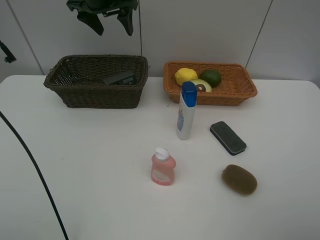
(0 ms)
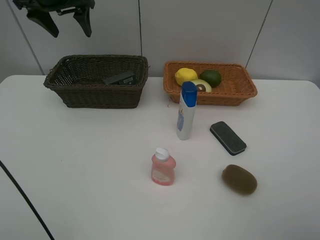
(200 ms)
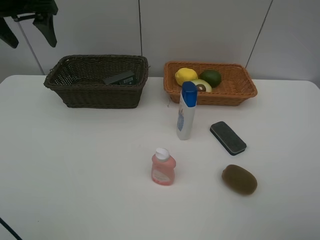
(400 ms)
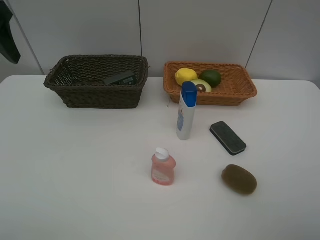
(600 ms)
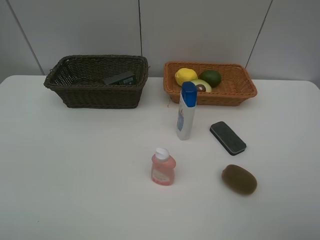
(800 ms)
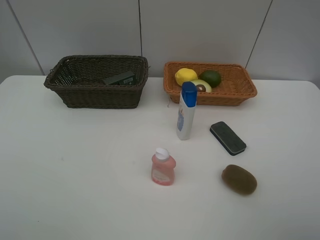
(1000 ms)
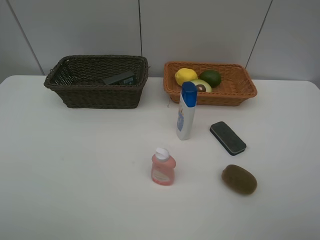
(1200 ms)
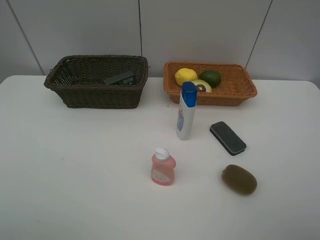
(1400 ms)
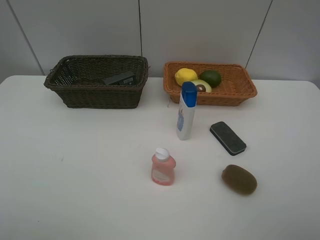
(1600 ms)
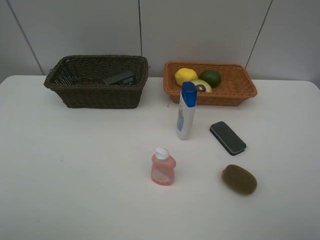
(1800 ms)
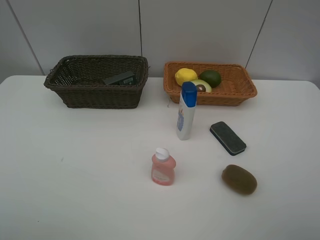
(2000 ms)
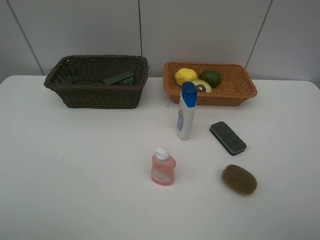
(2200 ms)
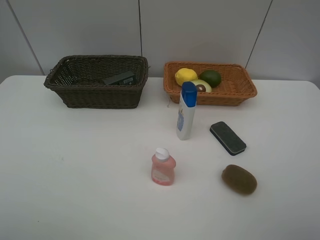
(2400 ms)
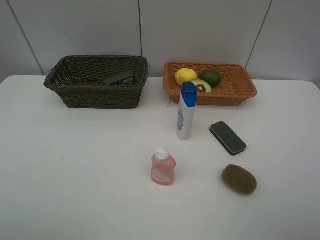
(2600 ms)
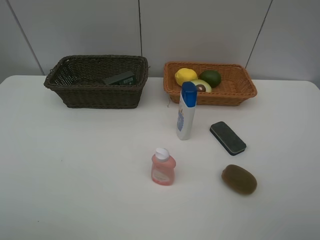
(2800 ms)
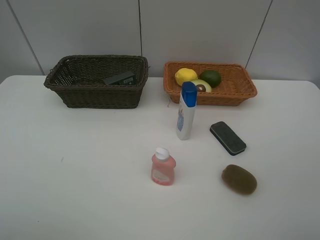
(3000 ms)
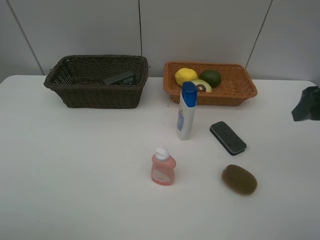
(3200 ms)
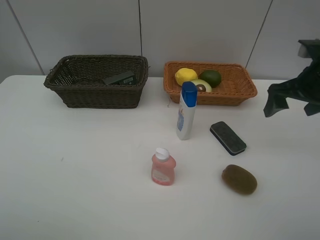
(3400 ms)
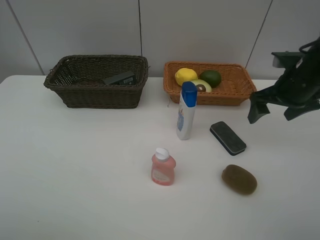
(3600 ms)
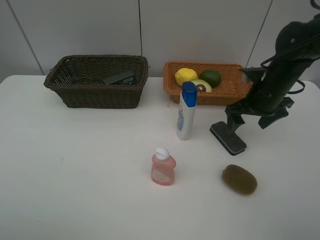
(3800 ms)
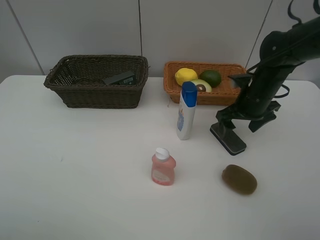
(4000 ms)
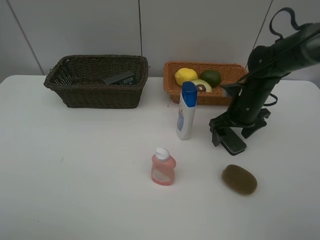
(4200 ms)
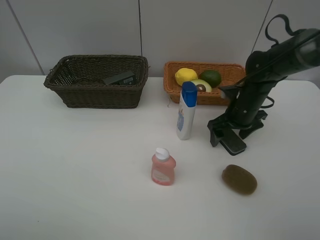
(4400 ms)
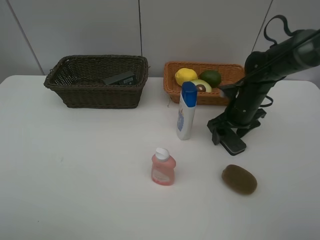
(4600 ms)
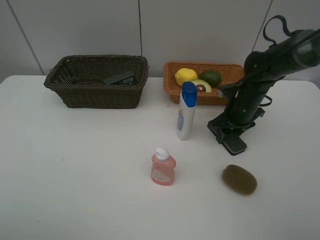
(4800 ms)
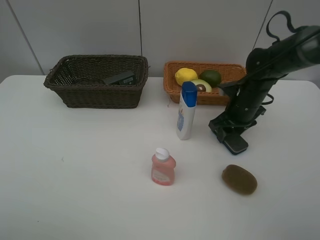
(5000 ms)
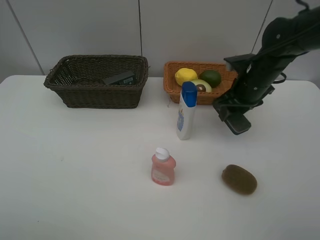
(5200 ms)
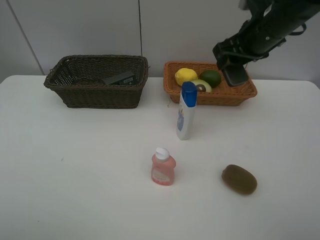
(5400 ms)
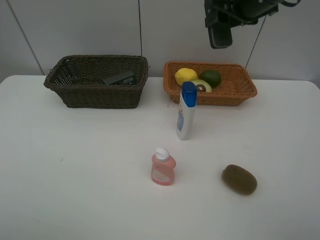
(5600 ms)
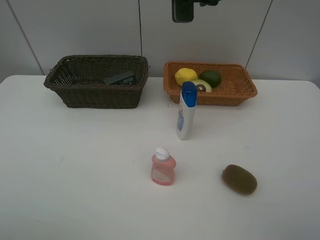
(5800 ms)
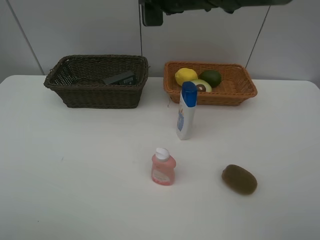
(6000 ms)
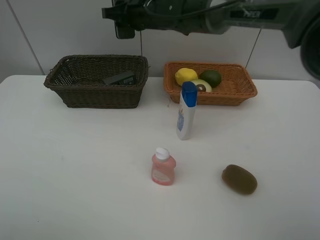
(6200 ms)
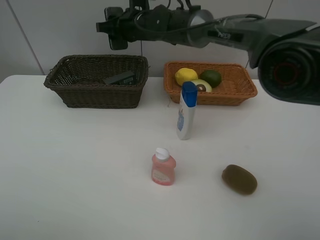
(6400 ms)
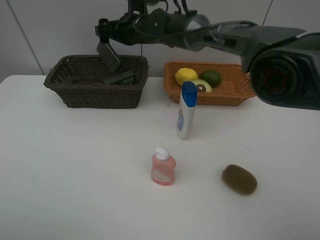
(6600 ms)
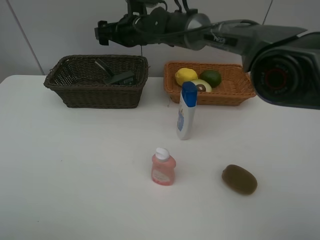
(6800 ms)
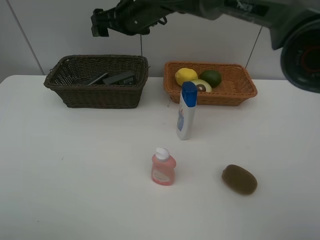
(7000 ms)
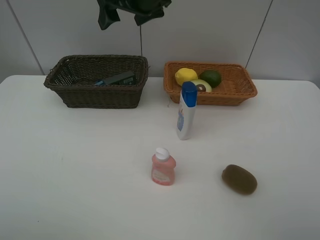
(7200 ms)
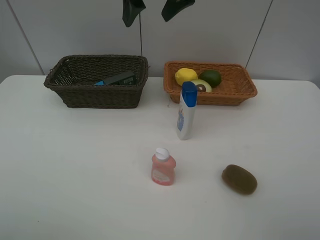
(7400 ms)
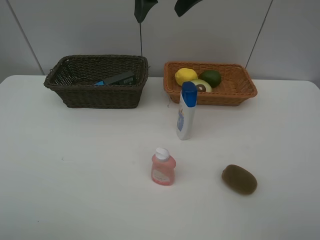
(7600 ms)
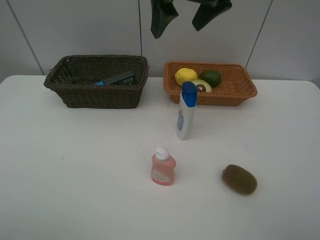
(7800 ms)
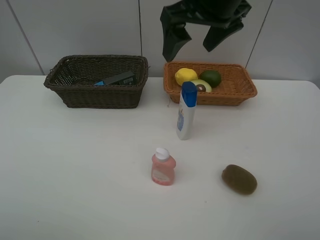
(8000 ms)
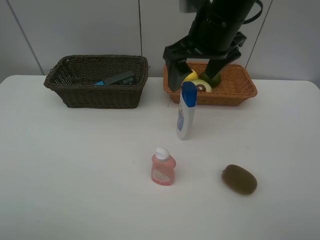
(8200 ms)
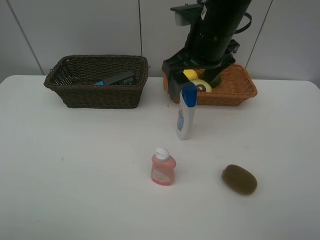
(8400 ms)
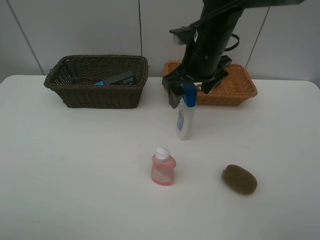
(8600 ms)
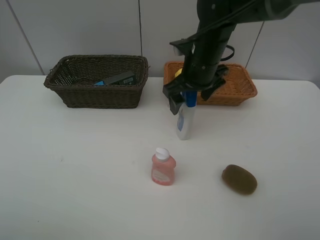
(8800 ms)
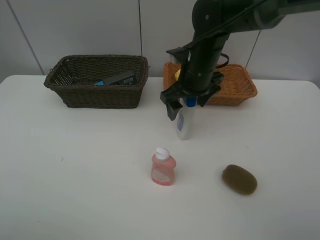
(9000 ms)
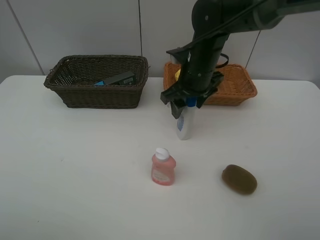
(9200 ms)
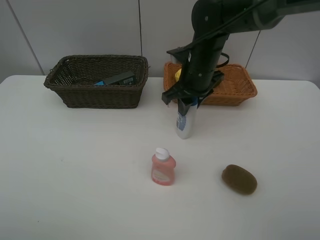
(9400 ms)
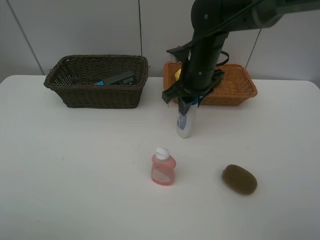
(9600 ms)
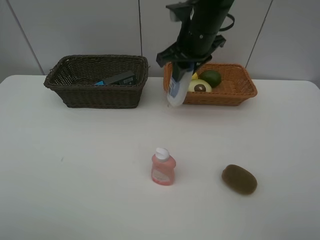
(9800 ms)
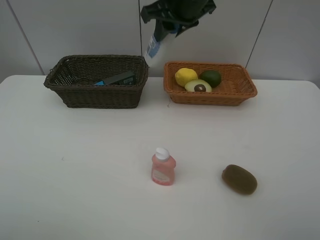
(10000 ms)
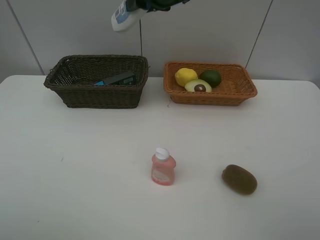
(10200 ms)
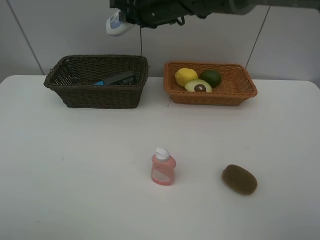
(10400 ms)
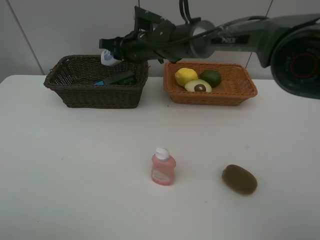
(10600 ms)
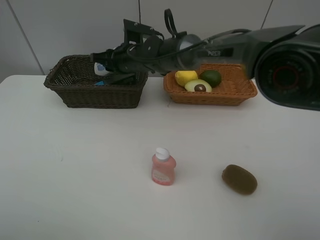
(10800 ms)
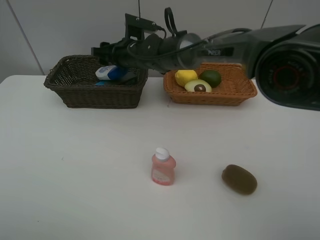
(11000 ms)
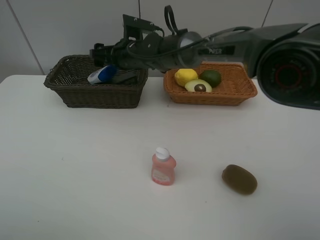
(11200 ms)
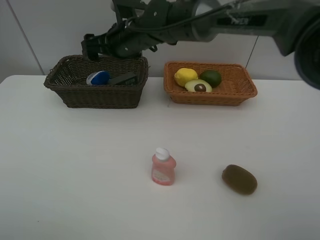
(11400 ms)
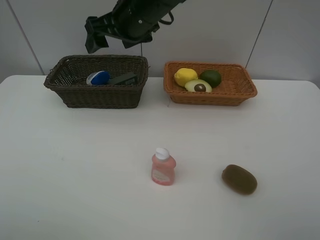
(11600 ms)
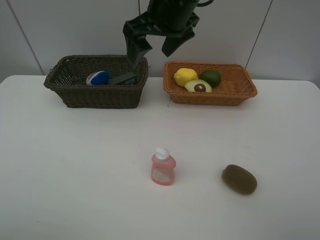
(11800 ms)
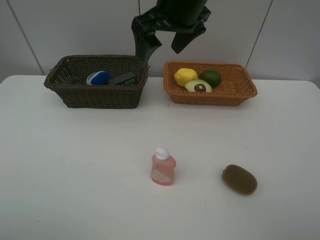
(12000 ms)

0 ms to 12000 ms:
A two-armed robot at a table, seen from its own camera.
Task of the whole recording: Place multiple objects separately in different baskets.
Step, 0 ms to 5000 ms: Pick up blackboard eraser with right gripper.
Step, 5200 ms to 6800 ms: Place the blackboard eraser in the dark basket with right gripper.
Step, 7000 ms to 9600 ms: Pick up the shampoo with right gripper.
Step, 9800 ms to 11200 ms: Place the shampoo in the dark basket with right gripper.
0 ms to 1600 ms: The left gripper heads backward, covering about 50 cm.
3000 ms to 4400 ms: The right gripper moves forward, downward and to the left, some 30 cm.
4400 ms to 6000 ms: The right gripper is displaced upward and to the left by some 25 cm, and closes.
6000 ms to 7600 ms: The right gripper goes some 10 cm upward and backward, and opens.
7600 ms to 9000 ms: The right gripper goes roughly 20 cm downward.
9000 ms to 10400 ms: The right gripper moves to the left, forward and upward, about 15 cm, and closes up.
10400 ms to 12000 ms: The right gripper goes roughly 15 cm backward, upward and to the right, and opens its fingers.

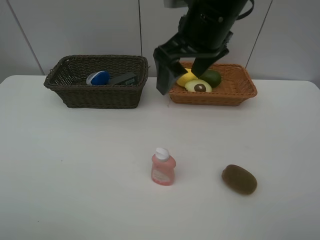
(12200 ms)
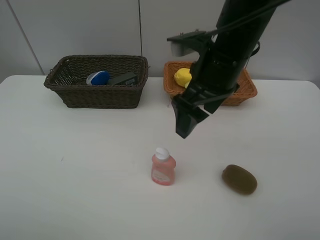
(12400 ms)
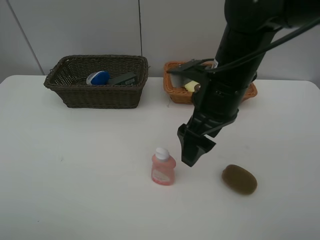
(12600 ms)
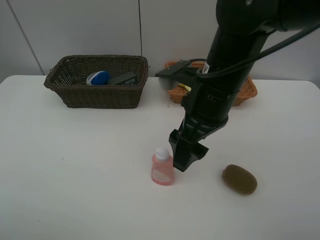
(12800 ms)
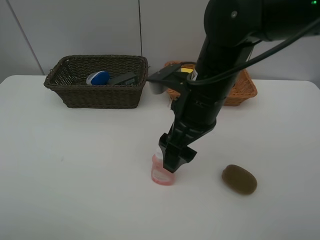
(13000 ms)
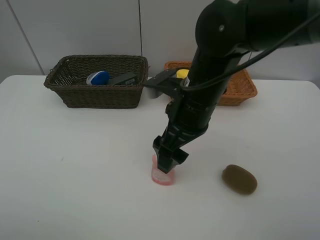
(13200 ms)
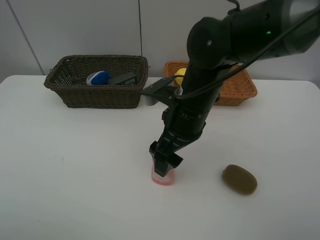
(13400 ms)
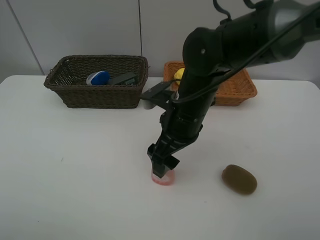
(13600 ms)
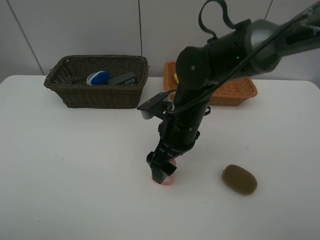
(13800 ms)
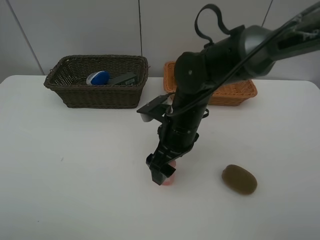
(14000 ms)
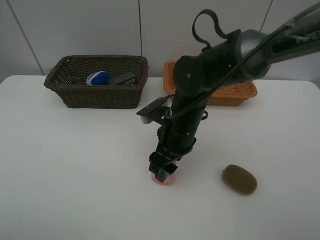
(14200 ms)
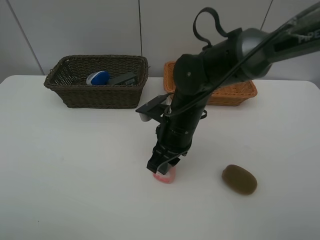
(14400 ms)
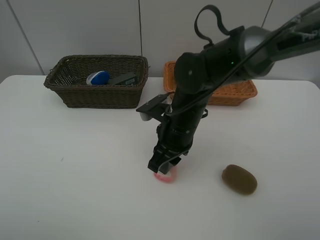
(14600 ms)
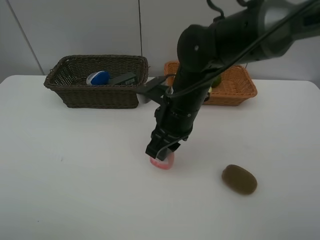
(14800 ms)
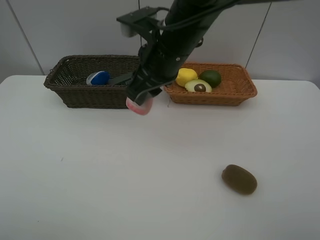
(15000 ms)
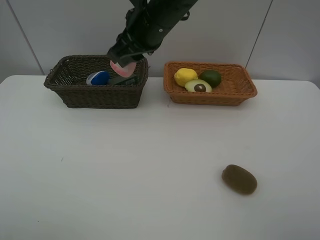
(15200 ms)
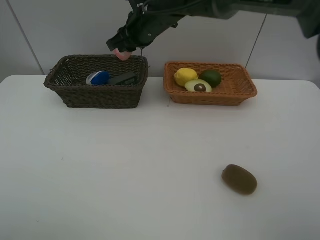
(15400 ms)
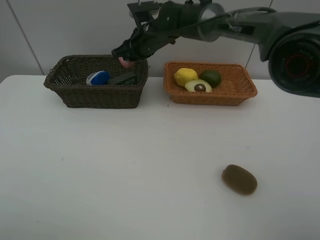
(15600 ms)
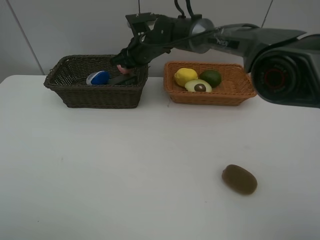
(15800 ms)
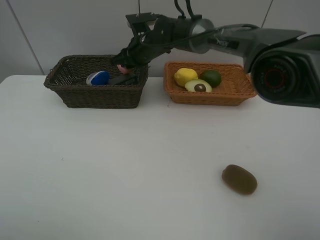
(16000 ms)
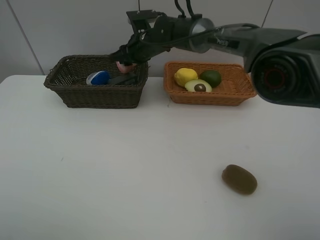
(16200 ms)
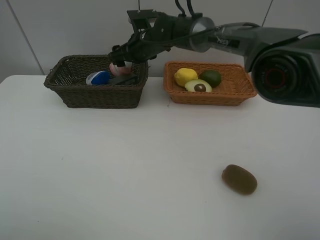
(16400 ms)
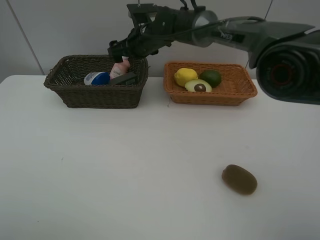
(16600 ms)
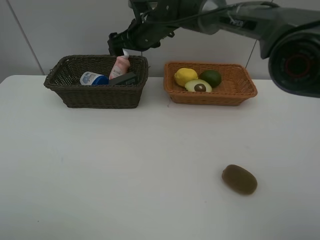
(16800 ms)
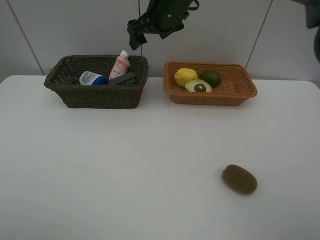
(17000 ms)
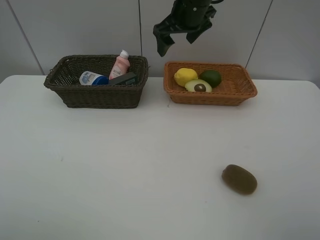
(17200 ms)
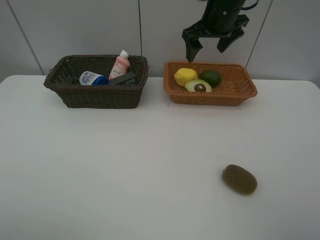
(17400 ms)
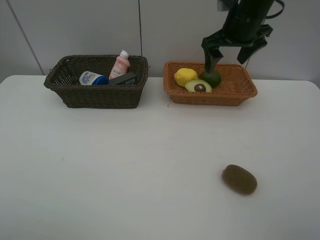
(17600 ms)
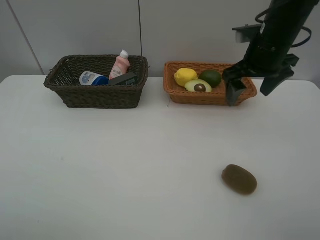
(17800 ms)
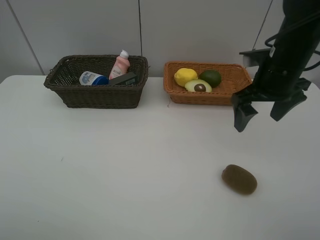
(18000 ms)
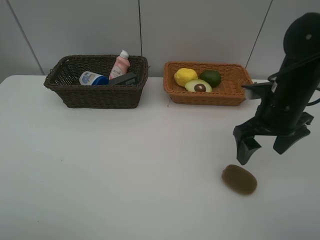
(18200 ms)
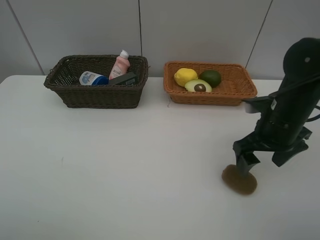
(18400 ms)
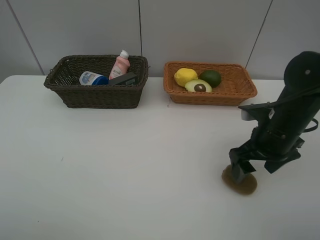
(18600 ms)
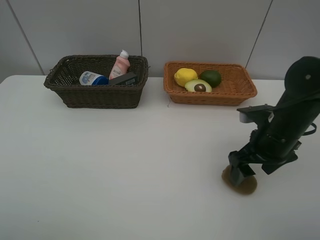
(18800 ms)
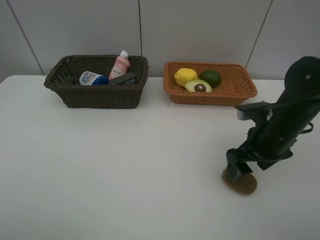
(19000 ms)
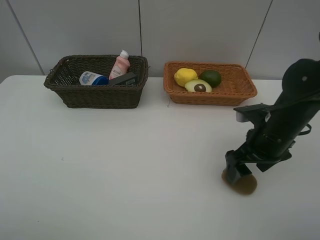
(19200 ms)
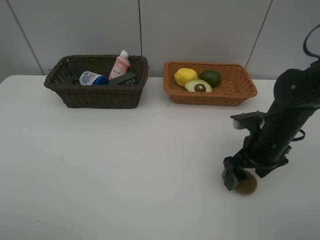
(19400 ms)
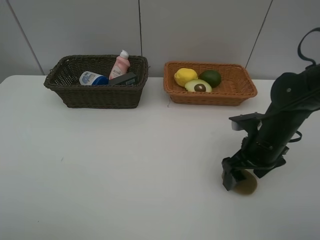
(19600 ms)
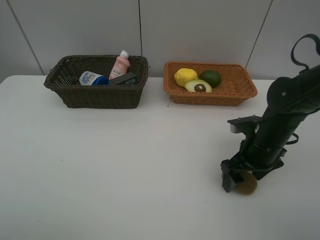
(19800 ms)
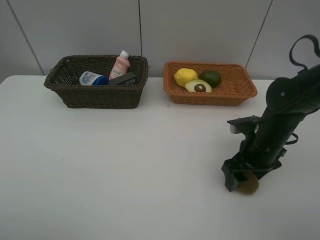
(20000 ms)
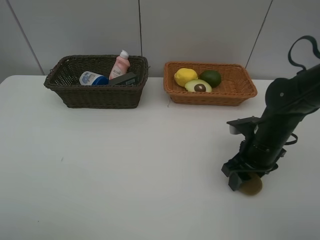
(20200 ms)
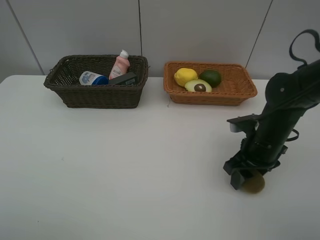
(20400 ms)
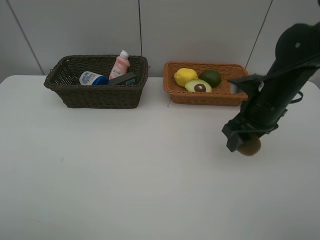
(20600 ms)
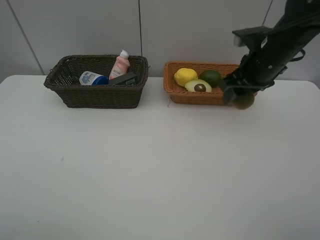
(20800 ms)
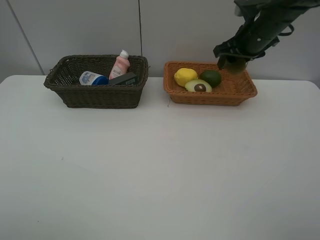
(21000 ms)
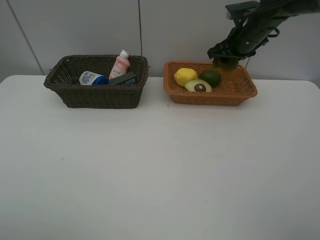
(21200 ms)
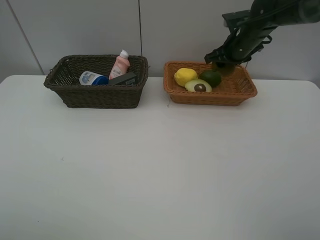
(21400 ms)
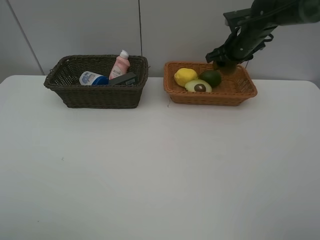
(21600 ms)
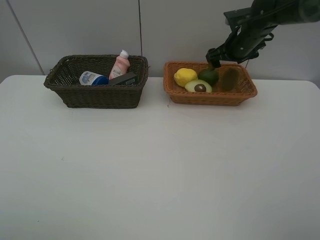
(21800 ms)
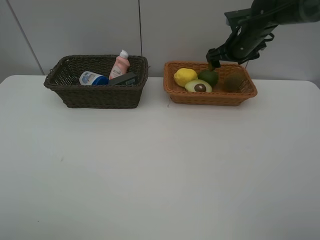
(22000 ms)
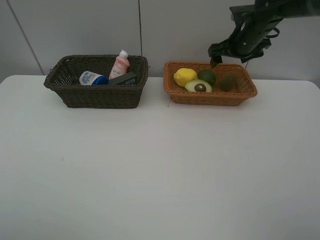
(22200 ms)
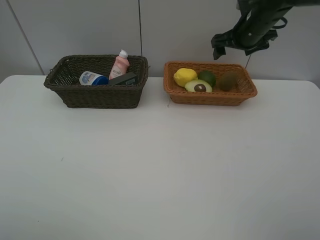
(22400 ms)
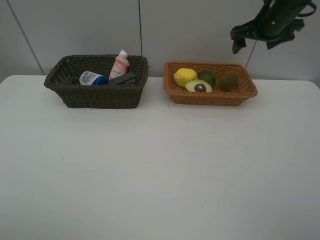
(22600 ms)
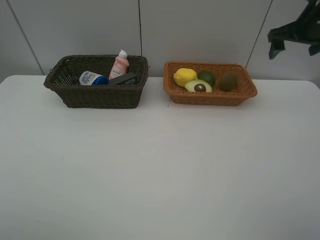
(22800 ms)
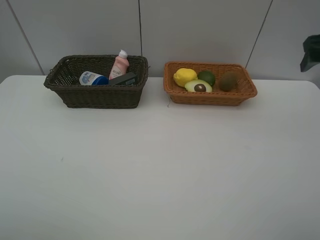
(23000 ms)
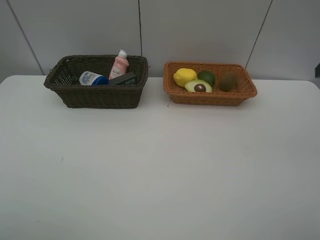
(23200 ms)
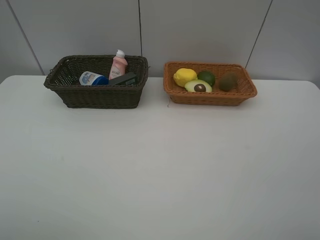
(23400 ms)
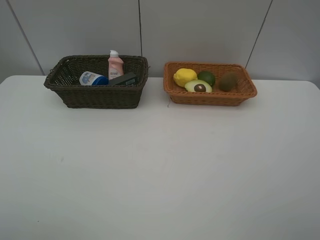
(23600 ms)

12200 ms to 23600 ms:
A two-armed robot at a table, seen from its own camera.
Task of the whole recording: Place multiple objects separately in different baskets.
Step, 12200 ms to 14600 ms: Pick up the laundry detergent with right gripper.
Step, 14800 ms to 16800 ms: Place the laundry detergent in the dark basket with right gripper.
Step, 17000 ms to 20400 ms: Pick up kiwi with right gripper.
Step, 20600 ms to 22000 ms: Place the kiwi in the light basket with right gripper.
12200 ms to 13600 ms: The right gripper is displaced downward by some 15 cm.
13600 ms to 15000 ms: The right gripper heads upward, covering some 10 cm, and closes.
15000 ms to 16400 ms: The right gripper is displaced forward and downward by approximately 20 cm, and opens its fingers.
16400 ms to 17800 ms: The right gripper heads to the right and backward, covering about 25 cm.
17800 ms to 19400 ms: The right gripper goes some 15 cm downward and backward.
19400 ms to 20800 ms: The right gripper shifts some 15 cm upward and forward, and closes its fingers.
20800 ms to 22200 ms: The right gripper shifts roughly 10 cm forward, and opens its fingers.
22200 ms to 23600 ms: The right gripper heads backward, covering approximately 40 cm.
